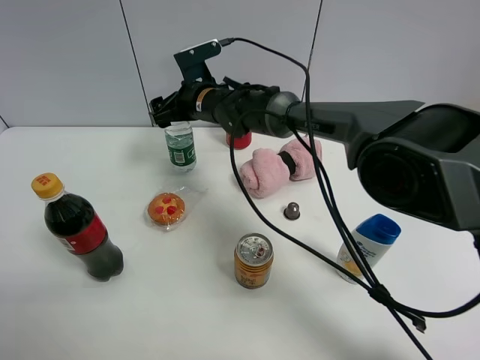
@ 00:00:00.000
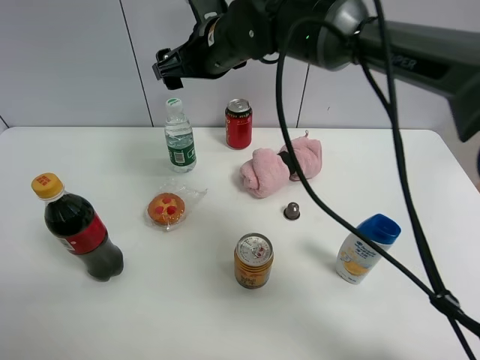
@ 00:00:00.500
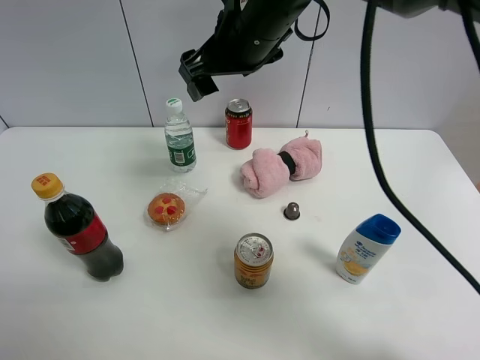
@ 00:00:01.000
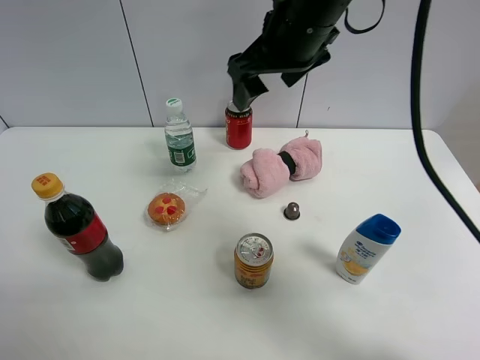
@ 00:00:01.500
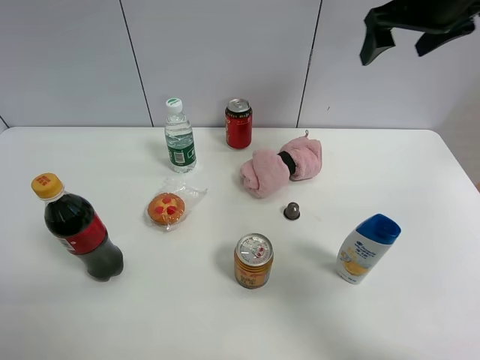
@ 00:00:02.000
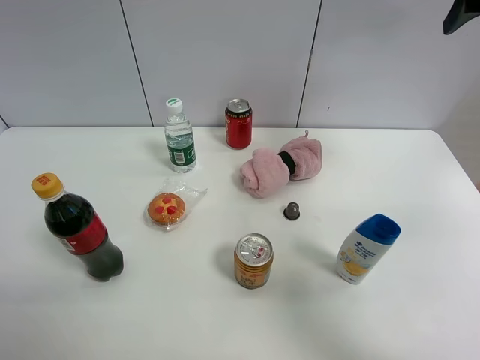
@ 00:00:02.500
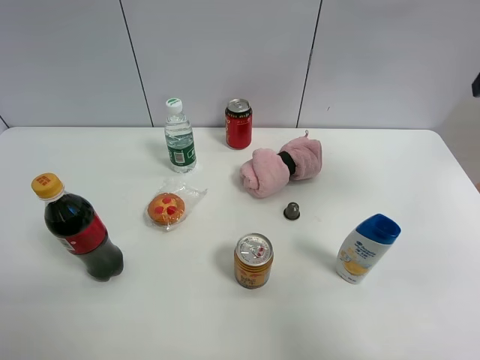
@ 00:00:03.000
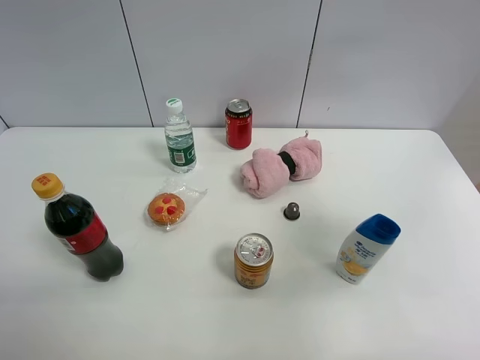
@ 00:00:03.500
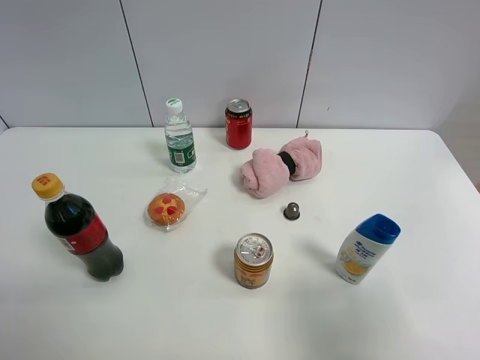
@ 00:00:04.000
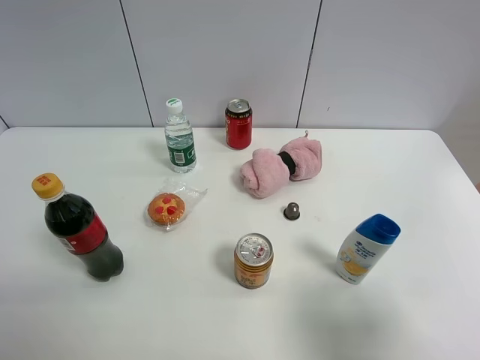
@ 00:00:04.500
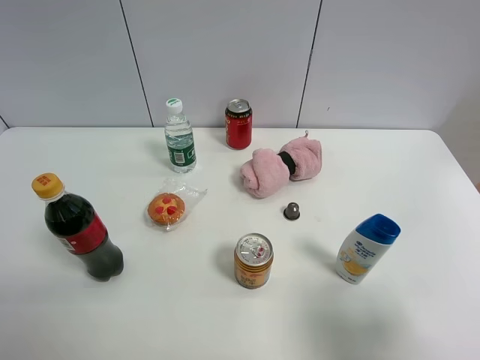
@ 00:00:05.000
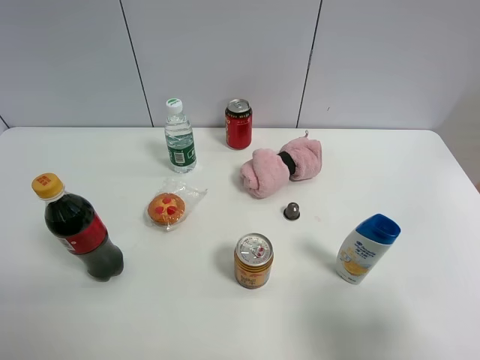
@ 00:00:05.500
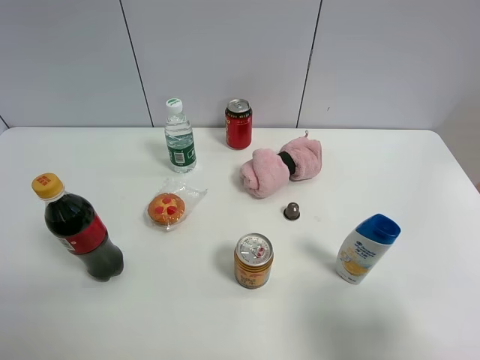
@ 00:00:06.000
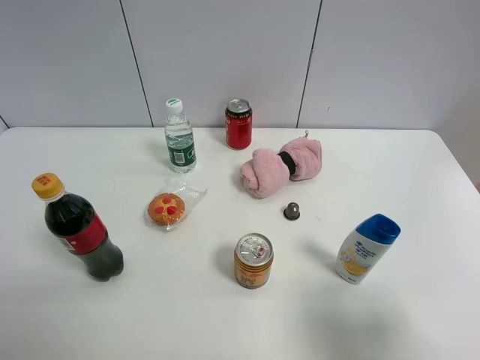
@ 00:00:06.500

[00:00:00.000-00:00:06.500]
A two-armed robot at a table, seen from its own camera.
Task of the whole recording: the gripper move the object.
00:00:00.000 to 00:00:02.000: The right gripper is displaced to the right and upward by roughly 35 cm.
00:00:02.000 to 00:00:04.500: The right gripper goes about 40 cm backward.
00:00:04.500 to 00:00:06.500: Both grippers stay put.

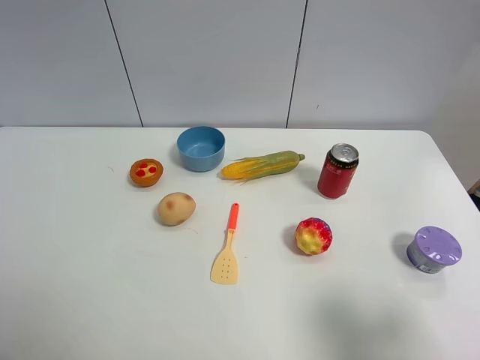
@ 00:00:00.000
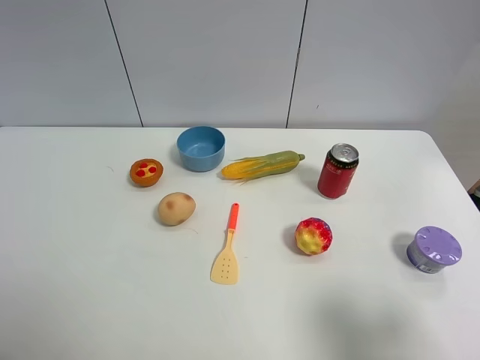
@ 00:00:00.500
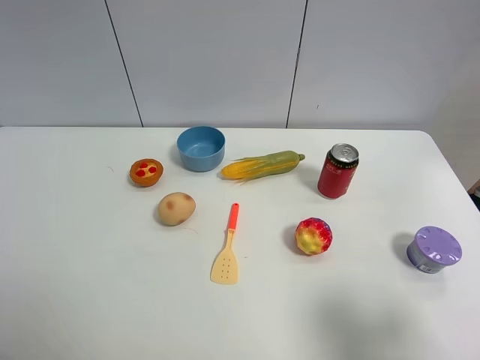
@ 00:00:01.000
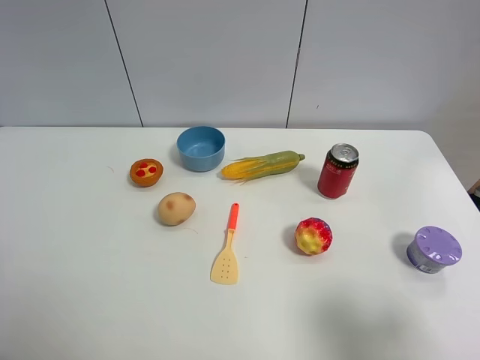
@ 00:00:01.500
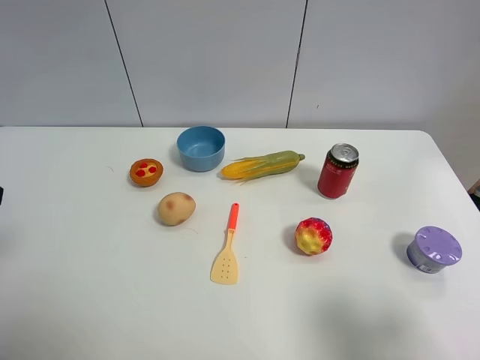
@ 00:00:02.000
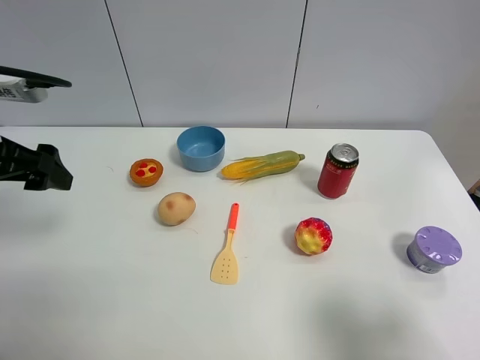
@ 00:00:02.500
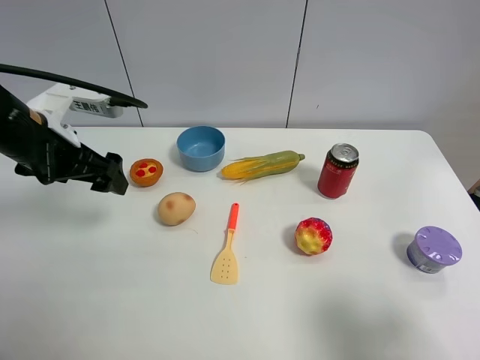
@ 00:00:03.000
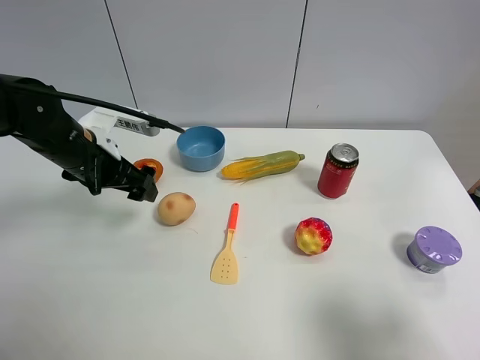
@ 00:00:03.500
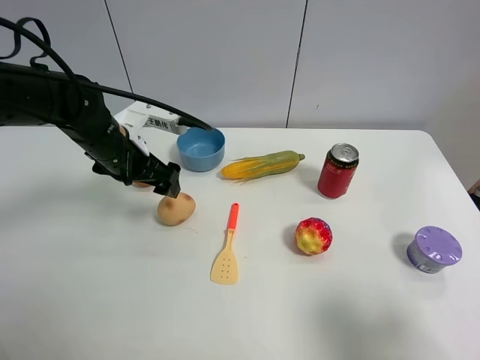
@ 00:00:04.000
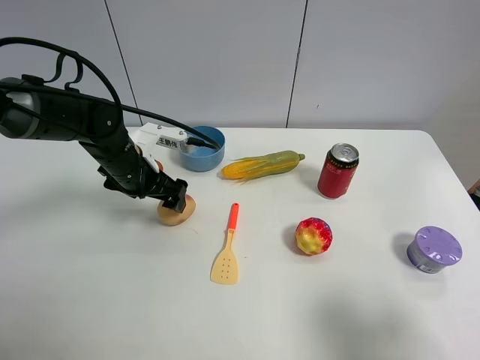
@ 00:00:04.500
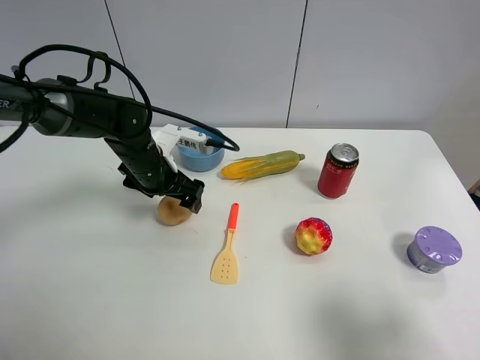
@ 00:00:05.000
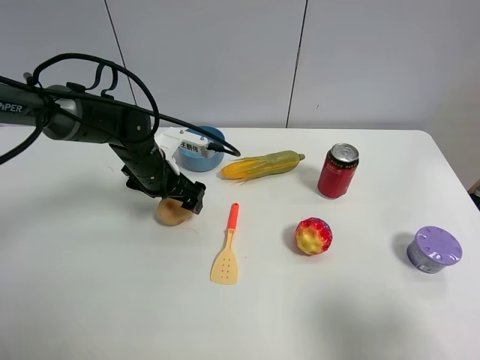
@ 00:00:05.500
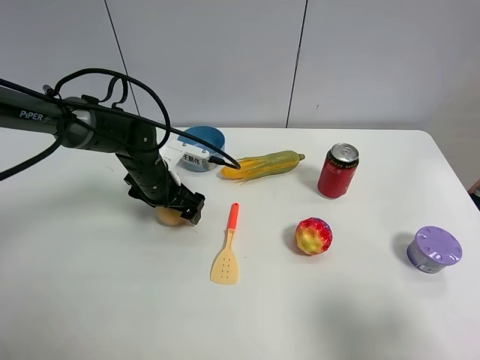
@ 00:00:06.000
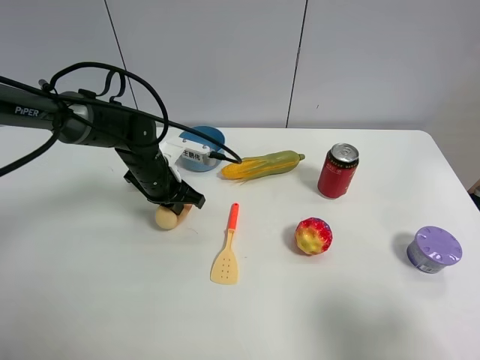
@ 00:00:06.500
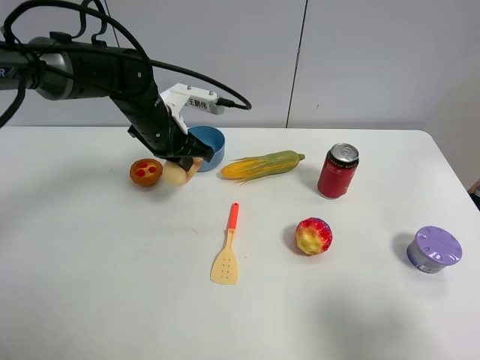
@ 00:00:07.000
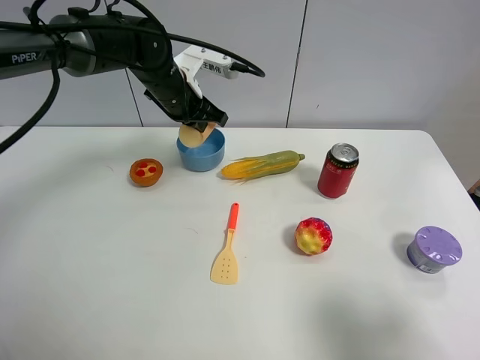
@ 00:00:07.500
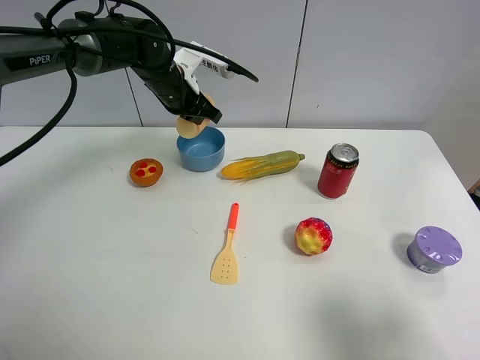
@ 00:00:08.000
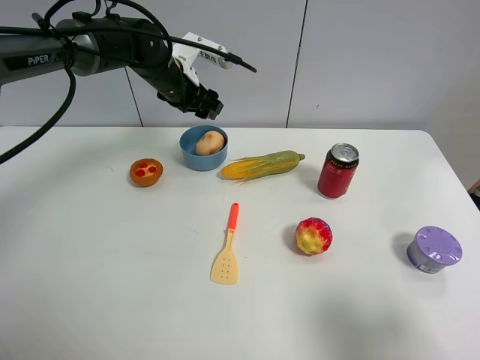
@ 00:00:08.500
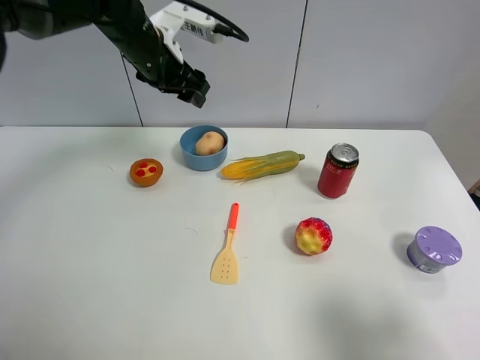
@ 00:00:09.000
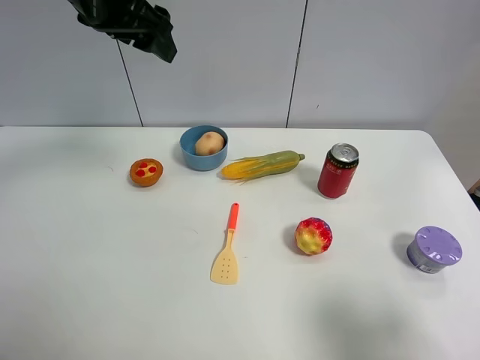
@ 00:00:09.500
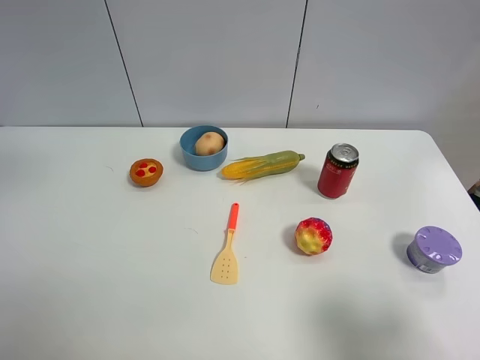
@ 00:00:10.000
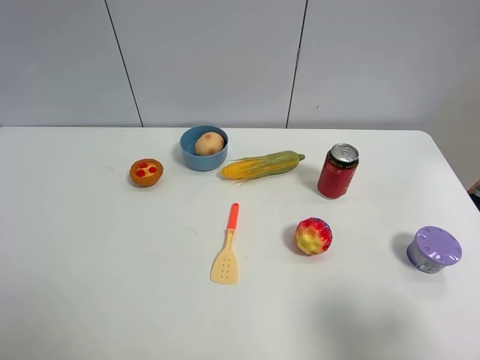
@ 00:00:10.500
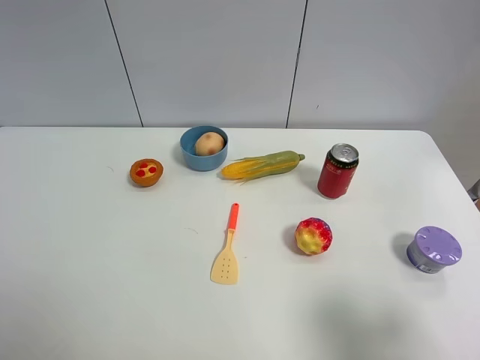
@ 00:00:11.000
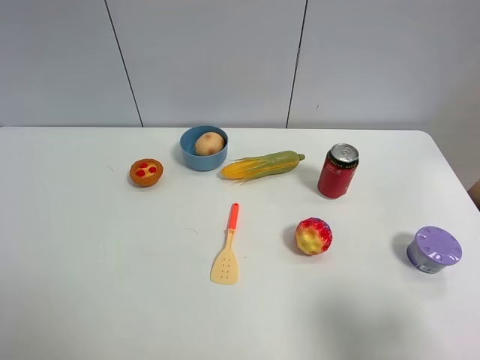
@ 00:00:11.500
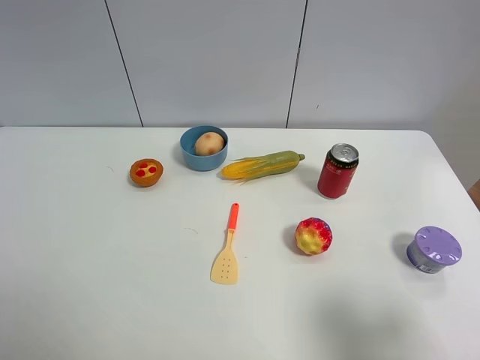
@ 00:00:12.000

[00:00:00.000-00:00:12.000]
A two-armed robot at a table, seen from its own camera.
Task of the whole recording: the gripper move the object.
Step, 00:00:00.000 to 00:00:06.000: Grasp the egg yolk pastry with the left gripper.
Step, 00:00:06.500 to 00:00:08.000: Place the egg yolk pastry into the blue bowl with the left gripper.
00:00:02.000 to 00:00:04.000: The left gripper travels forward, downward and to the right by roughly 25 cm.
00:00:04.000 to 00:00:06.000: The left gripper shifts approximately 10 cm downward.
00:00:06.000 to 00:00:08.000: The left gripper is displaced upward and forward by some 15 cm, and closes.
00:00:08.000 to 00:00:10.000: The left gripper heads upward, backward and to the left, covering some 40 cm, and opens up.

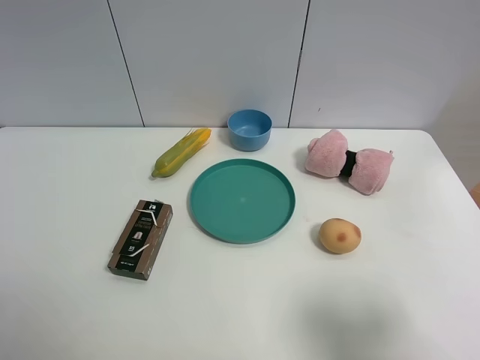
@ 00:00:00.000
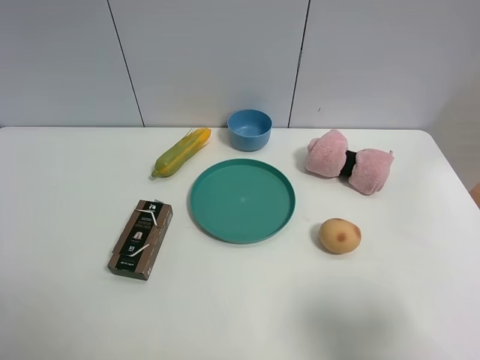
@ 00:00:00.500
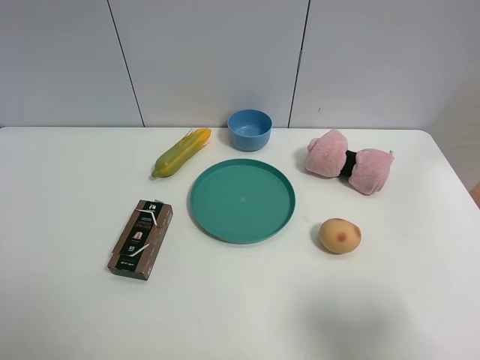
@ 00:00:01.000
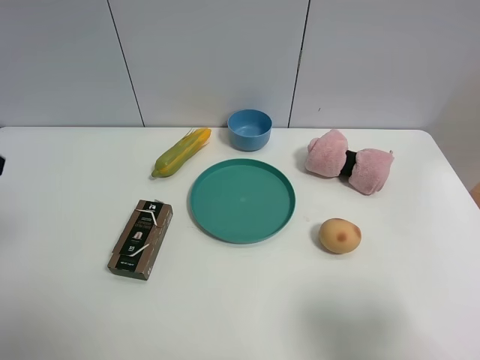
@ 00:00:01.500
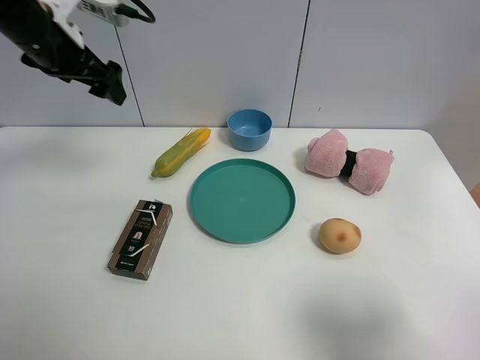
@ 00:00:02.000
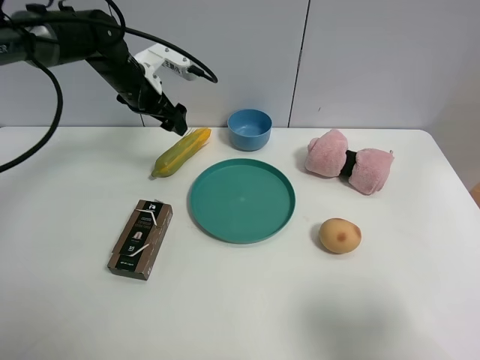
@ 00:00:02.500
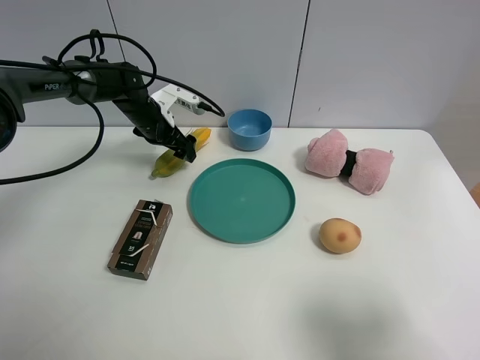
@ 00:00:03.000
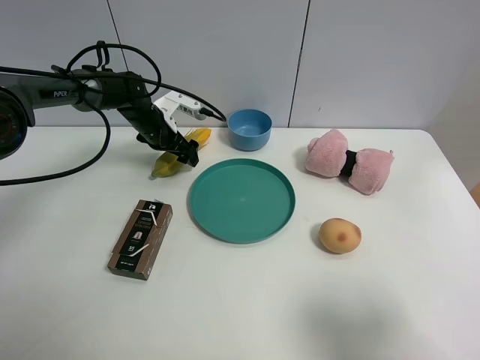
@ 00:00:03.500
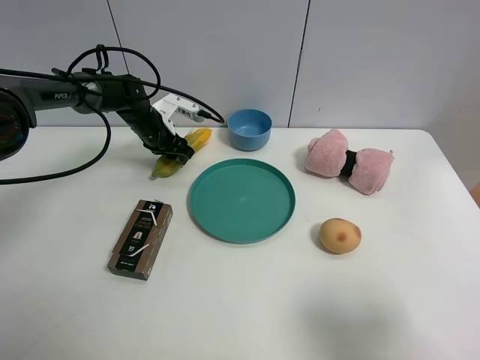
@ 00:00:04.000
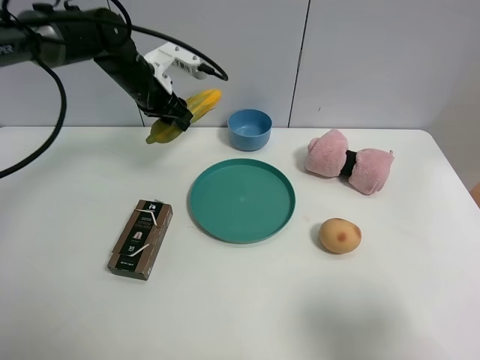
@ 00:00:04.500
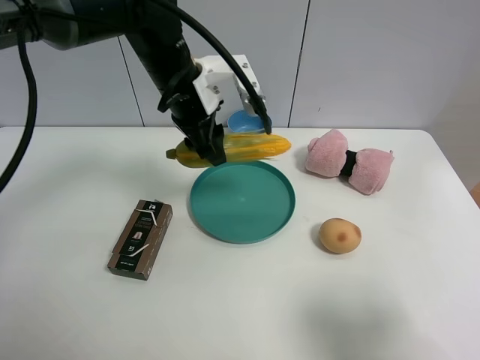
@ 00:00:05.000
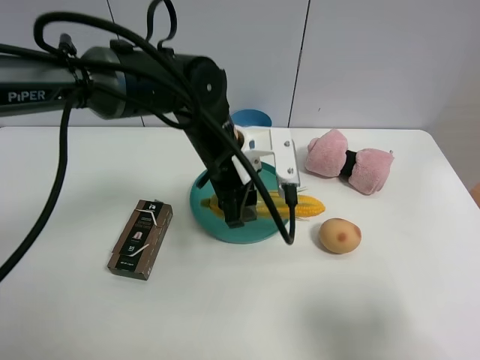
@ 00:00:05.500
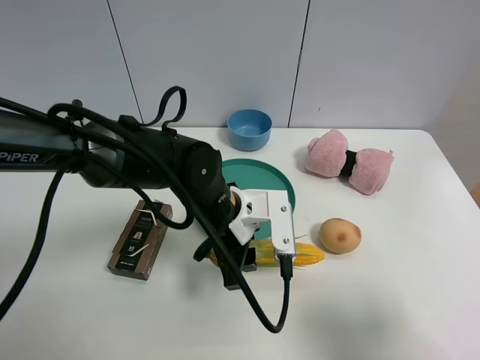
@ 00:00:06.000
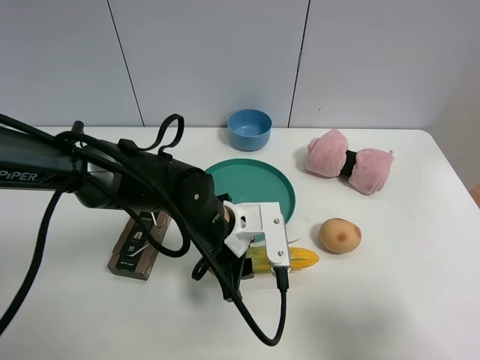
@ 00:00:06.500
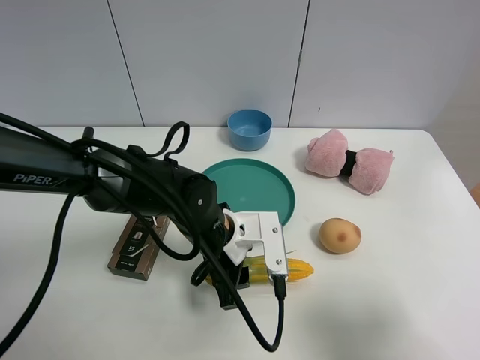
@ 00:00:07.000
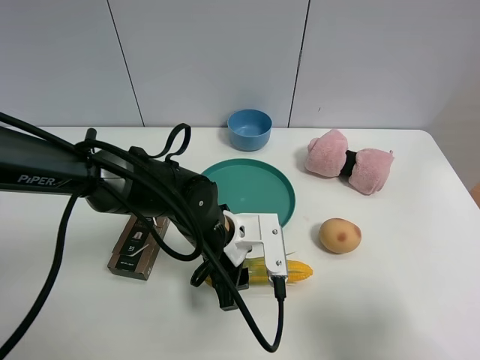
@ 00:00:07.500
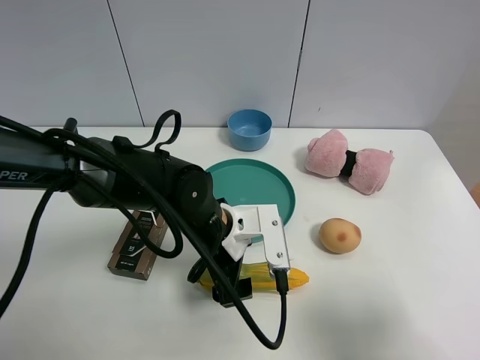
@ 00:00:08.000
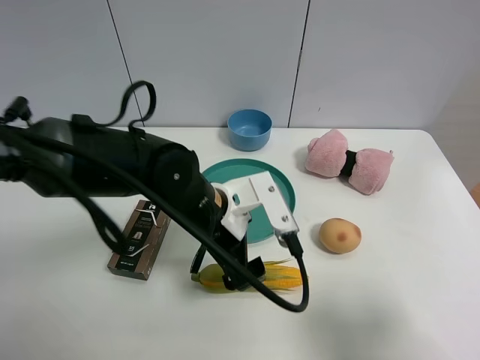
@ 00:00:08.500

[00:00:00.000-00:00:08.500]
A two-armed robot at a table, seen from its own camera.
Task of the whole recording: the gripper move the object.
Step, 00:00:00.000 to 00:00:04.000: Grasp the corn with the left gripper.
Step, 00:00:04.500 to 00:00:07.500: Place the corn on the table with the left gripper.
00:00:00.000 to 00:00:02.000: The left gripper is displaced forward by approximately 40 cm.
00:00:02.000 to 00:00:04.000: The left gripper travels downward and forward by some 25 cm, and closes up.
00:00:04.000 to 00:00:06.500: The left gripper goes approximately 30 cm backward and to the right.
00:00:06.500 to 00:00:08.500: The left gripper moves upward, roughly 5 cm, and opens.
